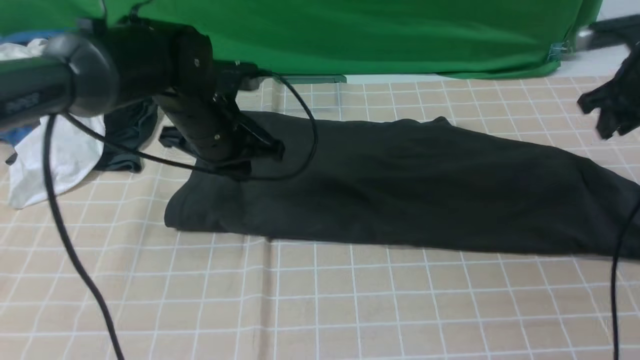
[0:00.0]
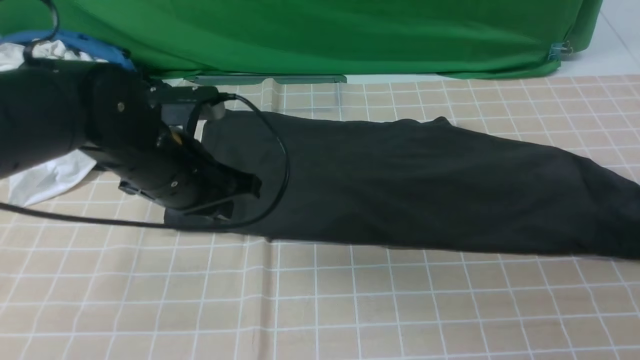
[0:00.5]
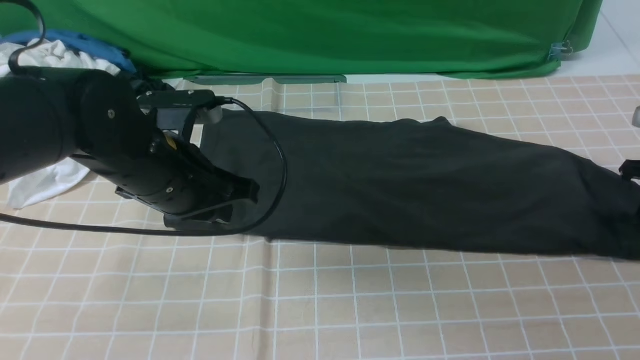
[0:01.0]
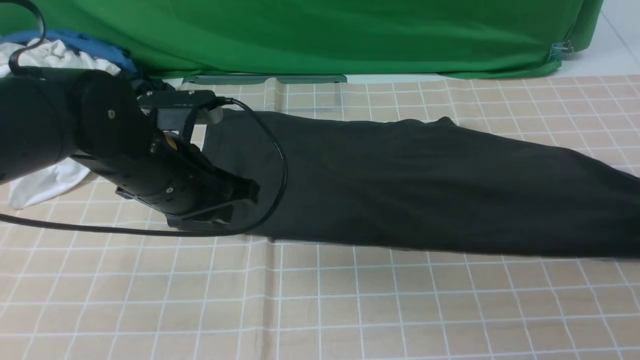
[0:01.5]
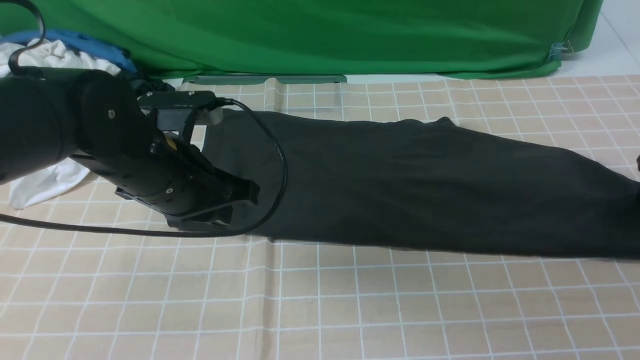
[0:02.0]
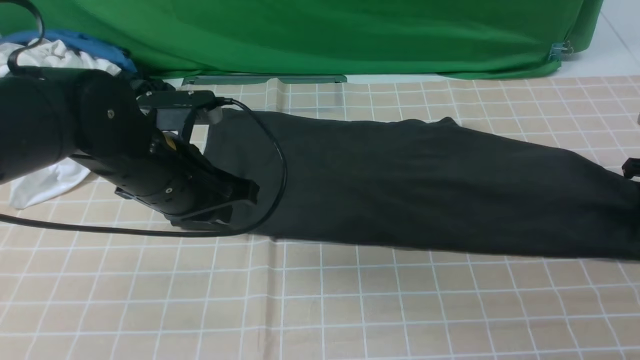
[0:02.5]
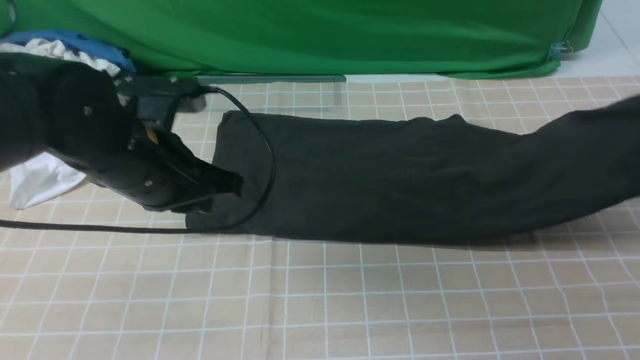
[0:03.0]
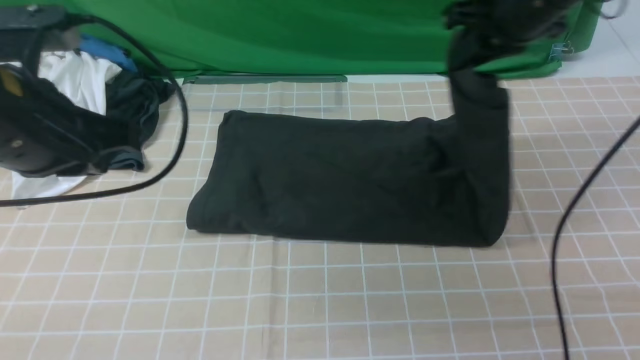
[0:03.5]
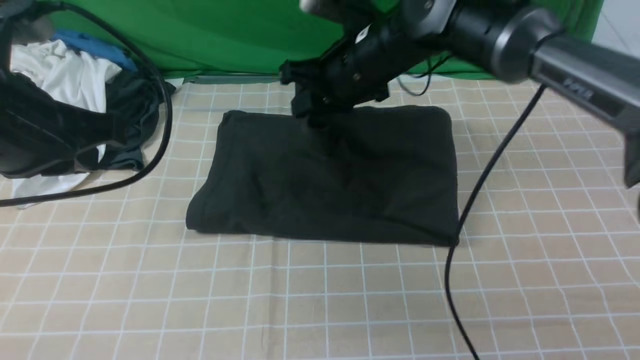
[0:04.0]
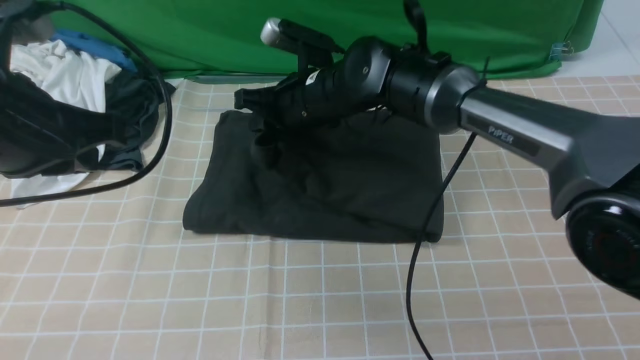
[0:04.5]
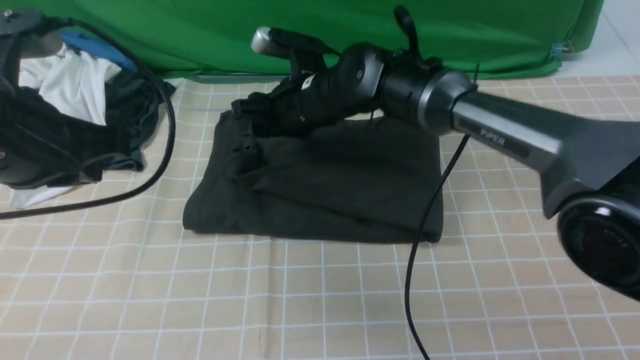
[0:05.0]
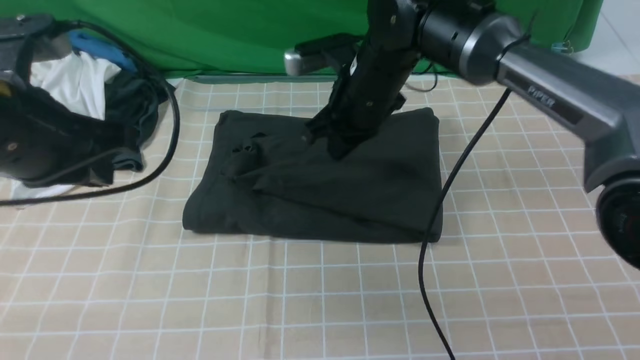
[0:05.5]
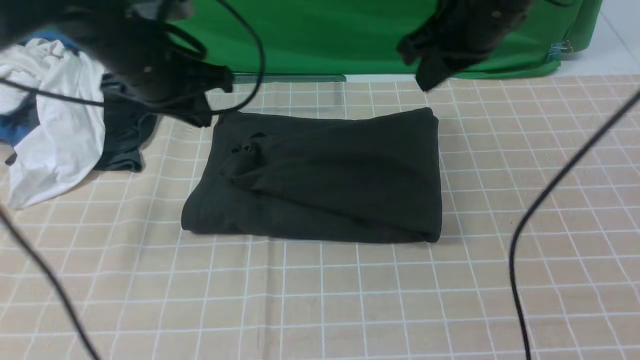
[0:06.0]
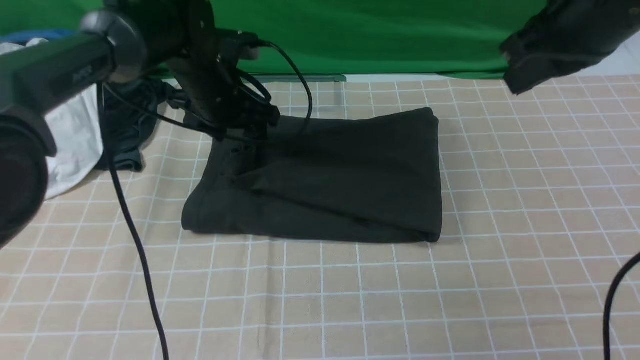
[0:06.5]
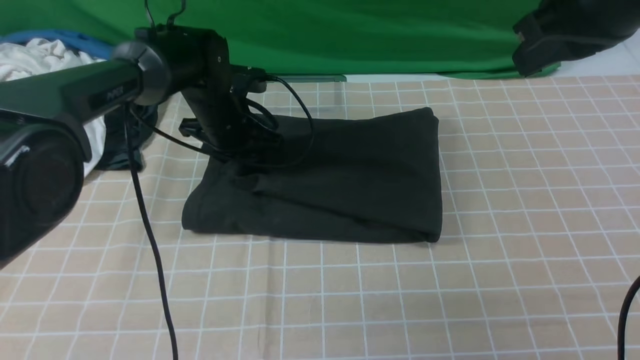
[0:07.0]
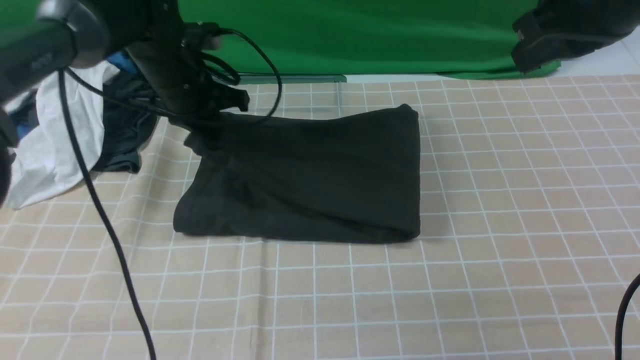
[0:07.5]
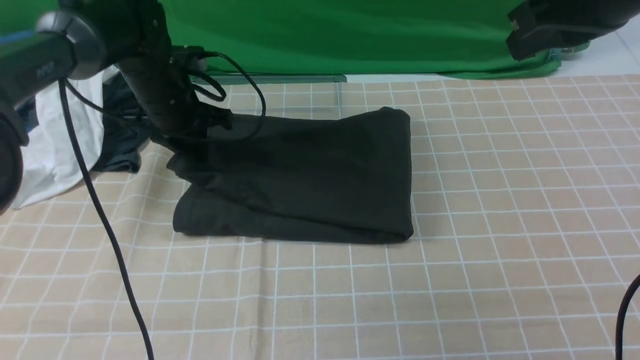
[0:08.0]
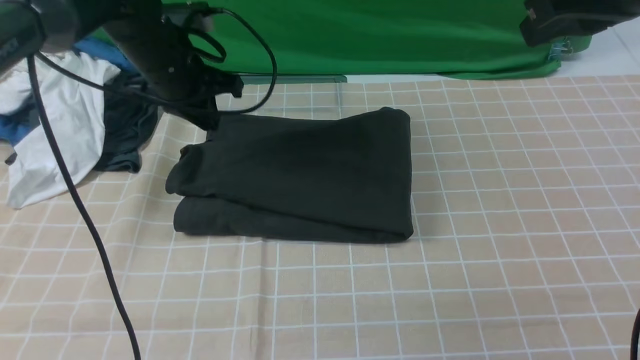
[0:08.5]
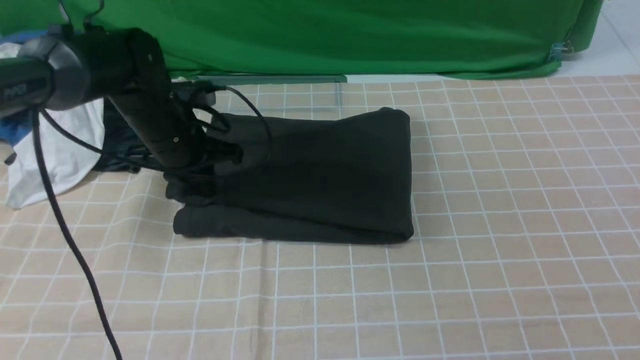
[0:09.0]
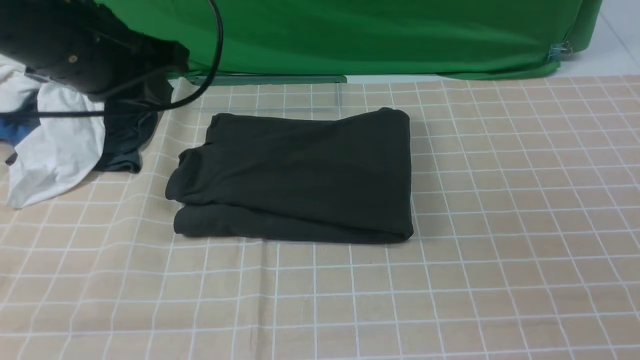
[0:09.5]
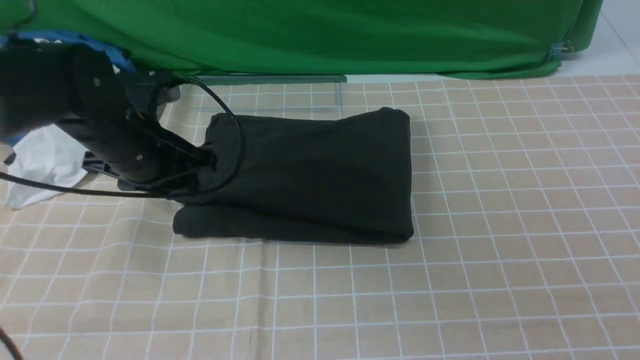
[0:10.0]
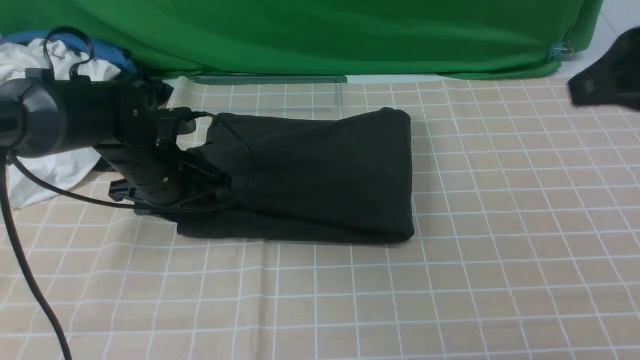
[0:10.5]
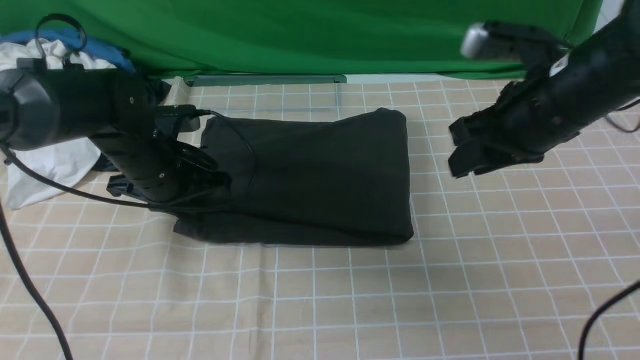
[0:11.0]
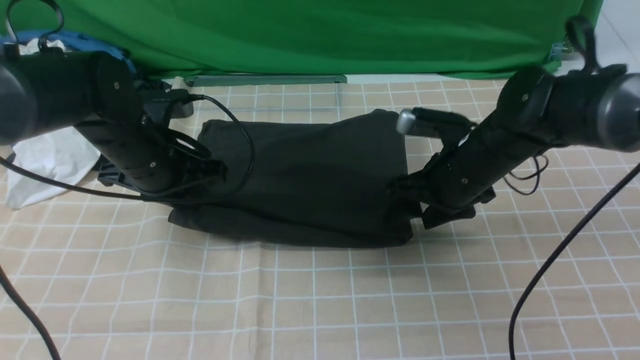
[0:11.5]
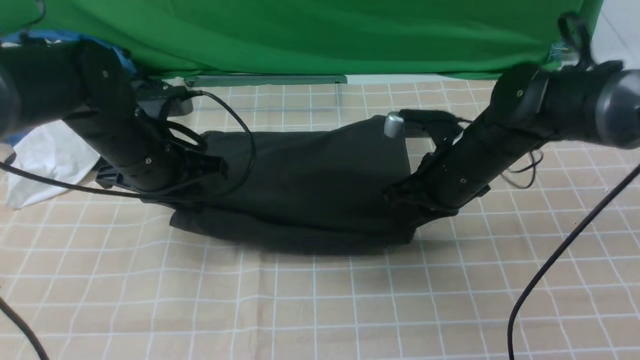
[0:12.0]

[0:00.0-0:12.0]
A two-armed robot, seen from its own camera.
Step, 0:00.0 to 0:02.5: use the right arm to clamp the right edge of the fabric.
Step, 0:03.0 to 0:05.0: use the right arm to drag the right edge of the fabric to the left and folds it over the left edge.
0:00.0 to 0:02.0: The right gripper goes some 10 cm downward and to the right, and opens. Meanwhile the left gripper heads backward, covering roughly 10 cm.
0:02.0 to 0:04.0: The left gripper moves upward, to the left and backward, roughly 15 cm, while the right gripper goes about 40 cm to the left, and closes its fingers.
0:04.0 to 0:06.0: The right gripper goes roughly 15 cm to the right, upward and backward, and opens, then closes once more; the left gripper heads forward, covering roughly 15 cm.
0:06.0 to 0:08.0: The left gripper is displaced downward and forward by some 10 cm, and opens and closes again; the right gripper shifts some 10 cm backward, to the right and upward.
0:08.0 to 0:10.0: Both grippers move backward, roughly 10 cm. The left gripper closes and opens again.
0:10.0 to 0:12.0: The right gripper heads downward, forward and to the left, covering approximately 30 cm, and opens and closes again. Meanwhile the left gripper closes up.

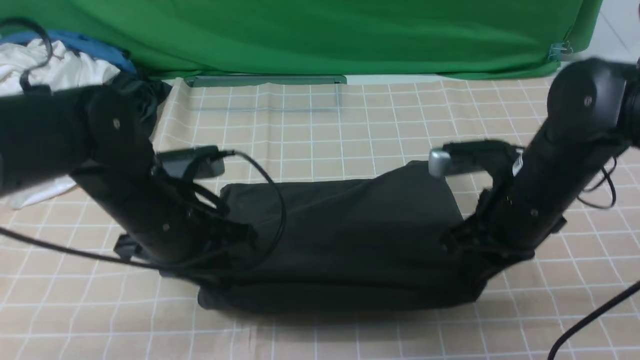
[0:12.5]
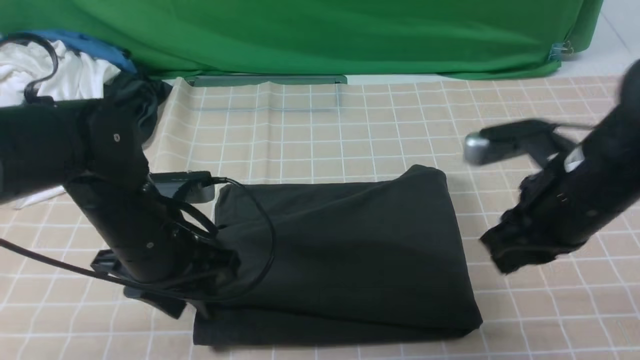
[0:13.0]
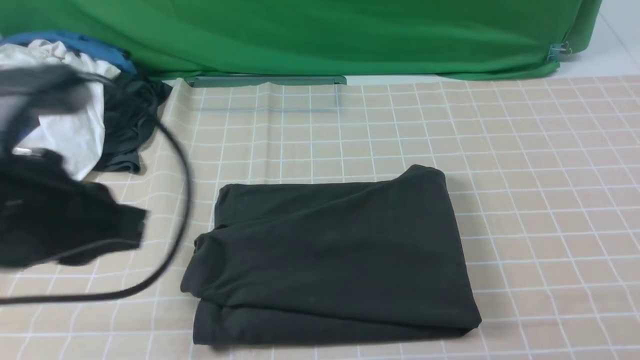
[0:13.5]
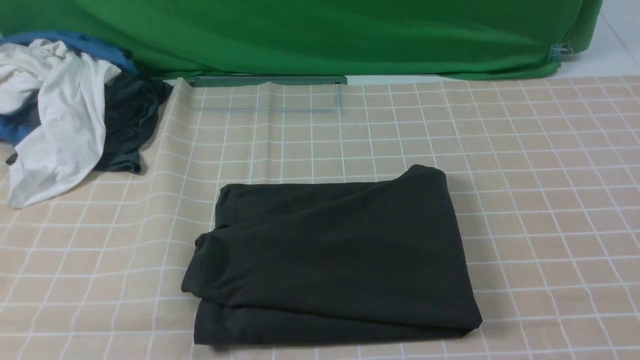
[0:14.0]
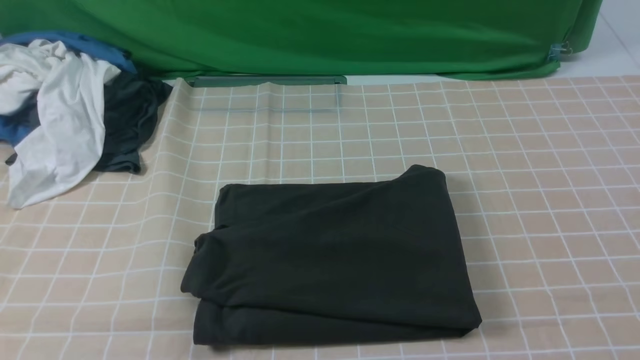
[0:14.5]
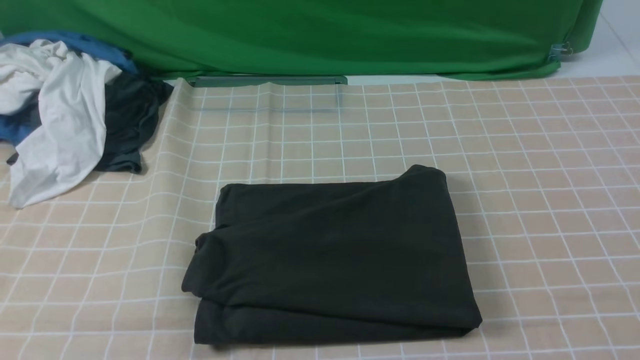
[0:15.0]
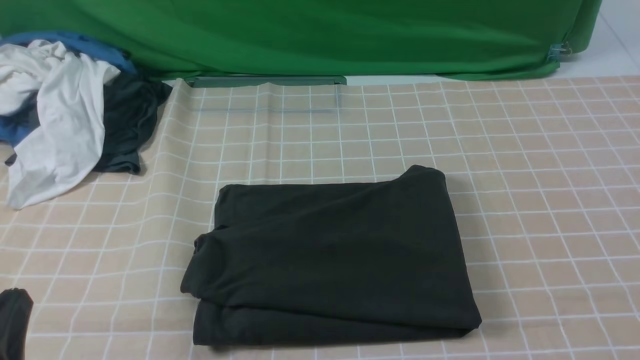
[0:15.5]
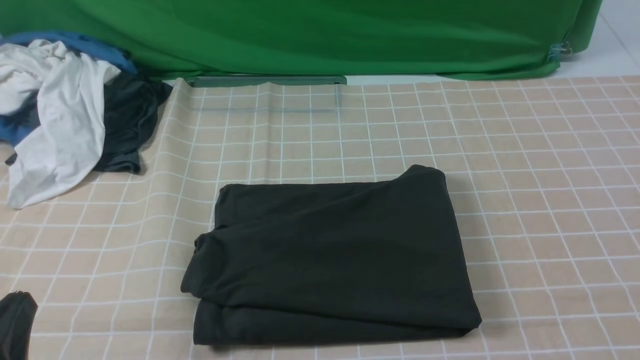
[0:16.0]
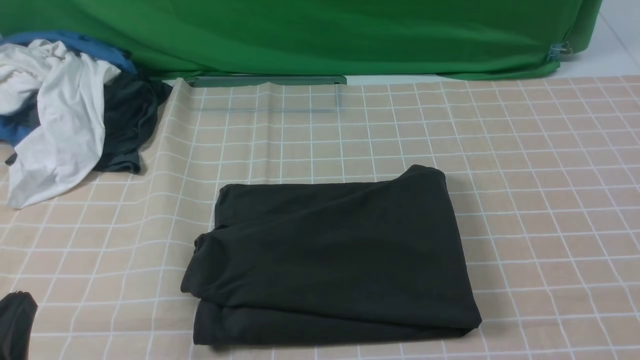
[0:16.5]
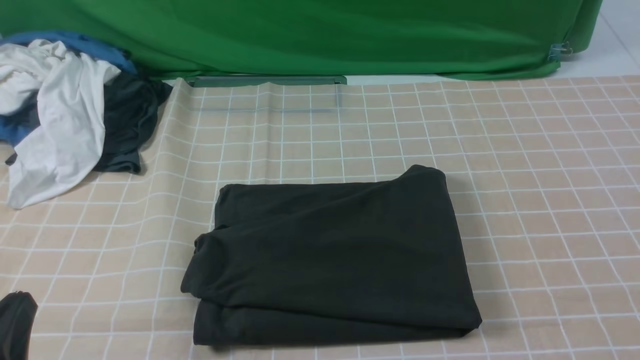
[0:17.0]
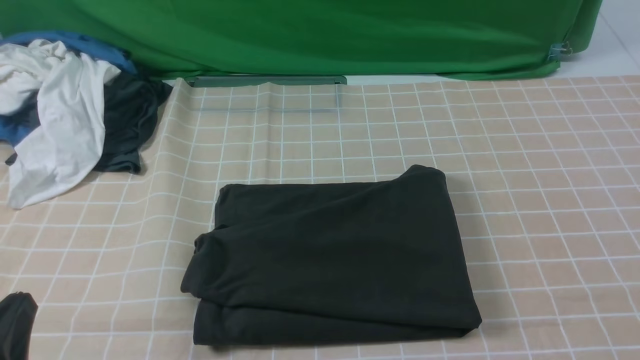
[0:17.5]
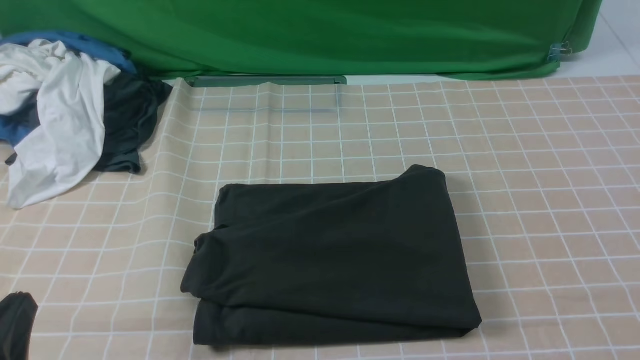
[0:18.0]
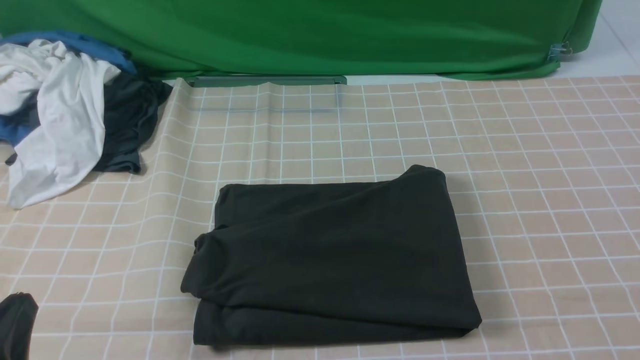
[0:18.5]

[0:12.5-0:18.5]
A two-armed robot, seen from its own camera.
0:12.5 to 0:14.5: The left gripper travels backward and upward by approximately 25 cm, and opens, then closes once more. Meanwhile the right gripper is displaced backward, upward and to the right by some 35 cm.
0:14.5 to 0:16.5: The left gripper travels downward by about 15 cm.
